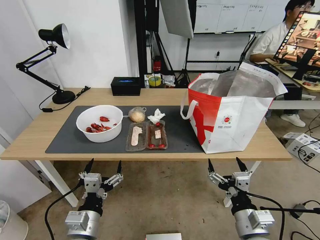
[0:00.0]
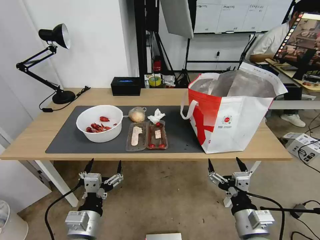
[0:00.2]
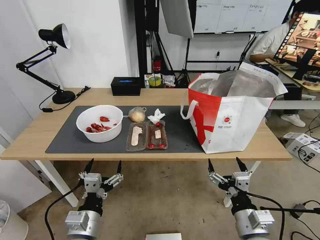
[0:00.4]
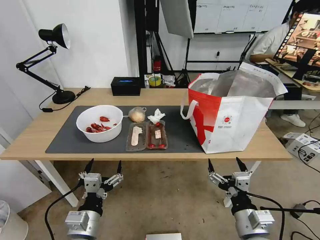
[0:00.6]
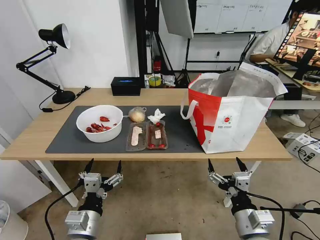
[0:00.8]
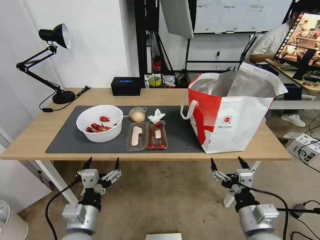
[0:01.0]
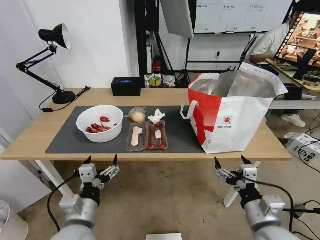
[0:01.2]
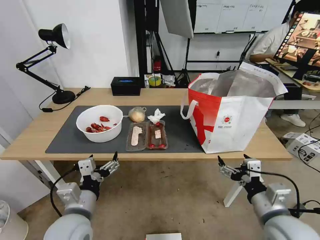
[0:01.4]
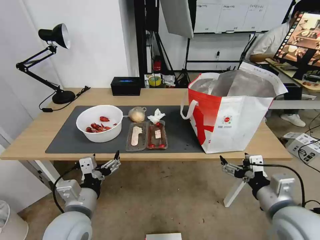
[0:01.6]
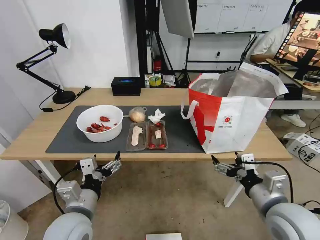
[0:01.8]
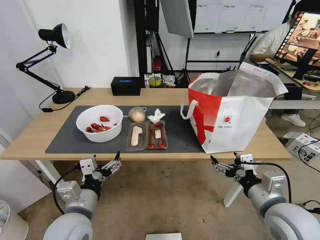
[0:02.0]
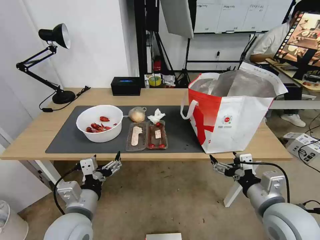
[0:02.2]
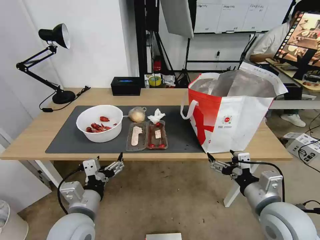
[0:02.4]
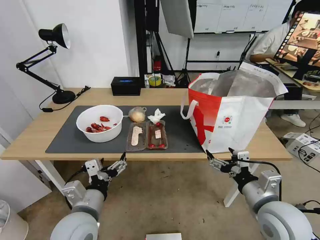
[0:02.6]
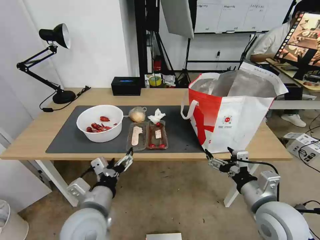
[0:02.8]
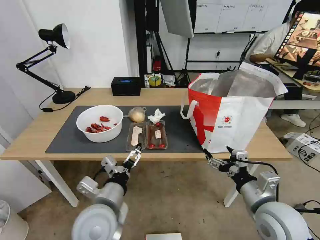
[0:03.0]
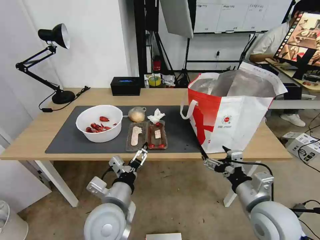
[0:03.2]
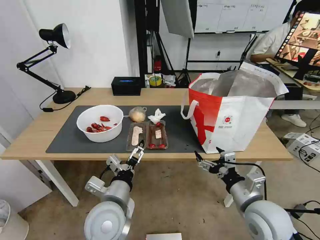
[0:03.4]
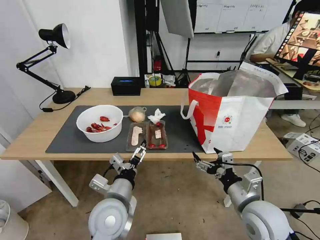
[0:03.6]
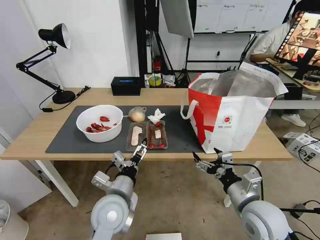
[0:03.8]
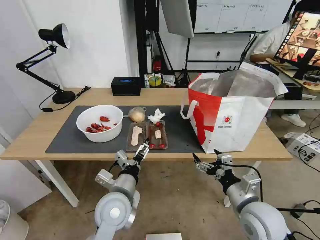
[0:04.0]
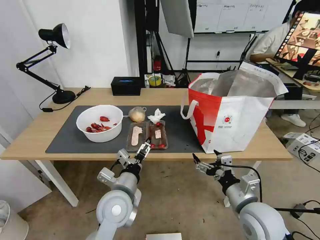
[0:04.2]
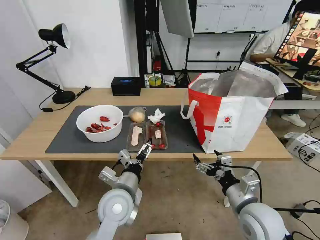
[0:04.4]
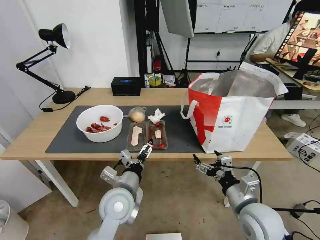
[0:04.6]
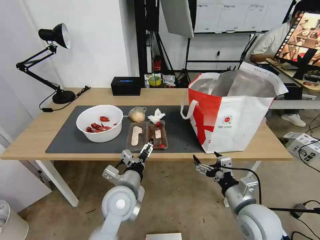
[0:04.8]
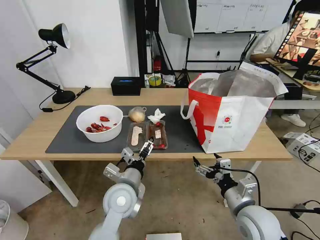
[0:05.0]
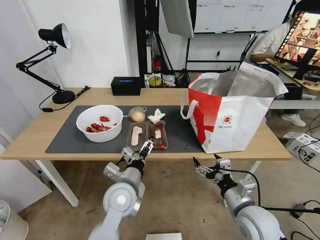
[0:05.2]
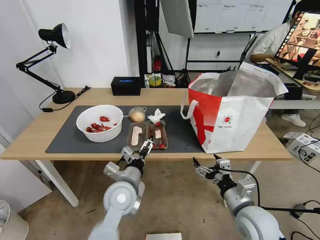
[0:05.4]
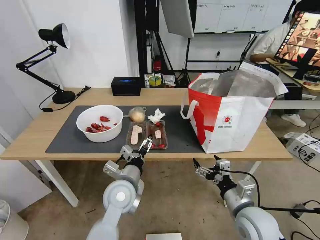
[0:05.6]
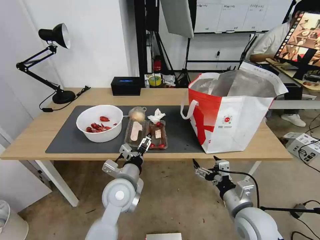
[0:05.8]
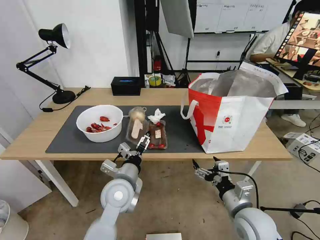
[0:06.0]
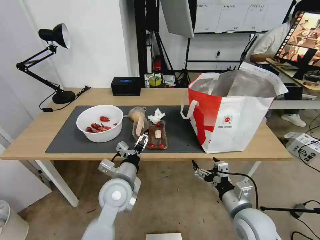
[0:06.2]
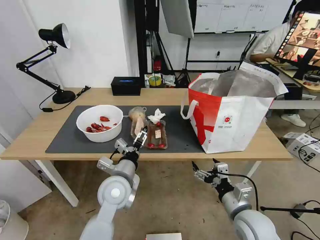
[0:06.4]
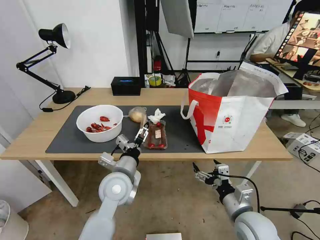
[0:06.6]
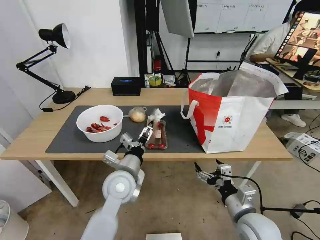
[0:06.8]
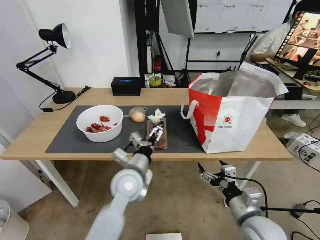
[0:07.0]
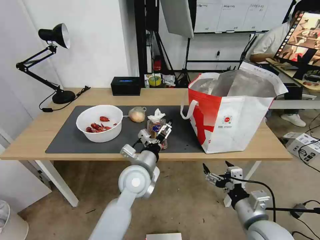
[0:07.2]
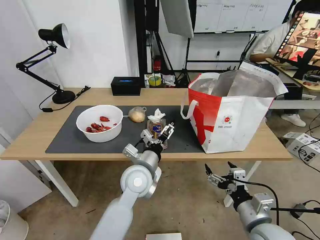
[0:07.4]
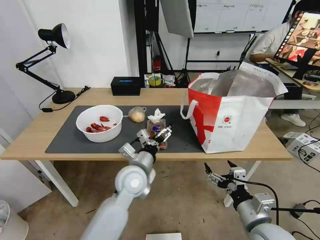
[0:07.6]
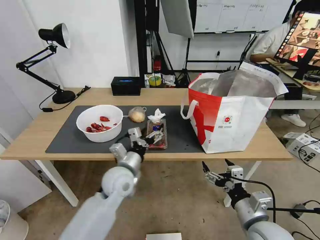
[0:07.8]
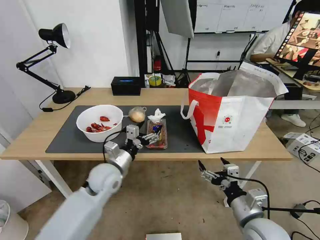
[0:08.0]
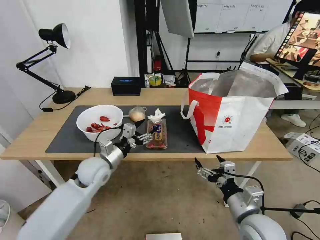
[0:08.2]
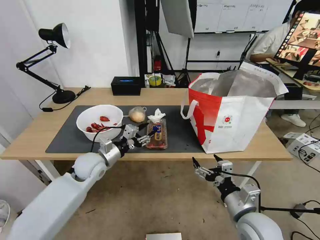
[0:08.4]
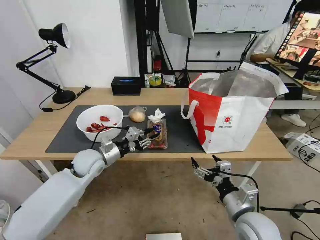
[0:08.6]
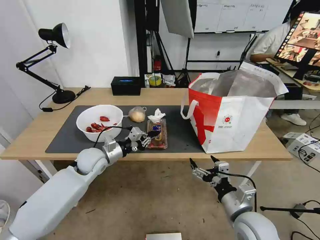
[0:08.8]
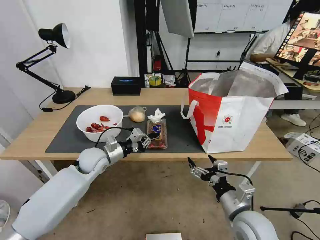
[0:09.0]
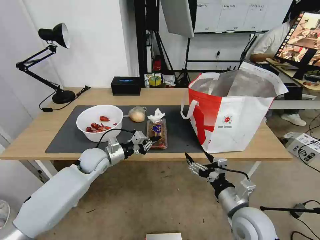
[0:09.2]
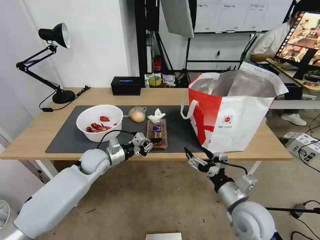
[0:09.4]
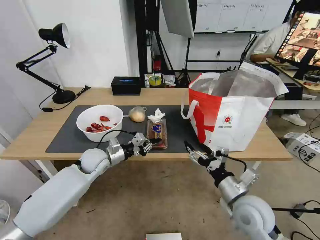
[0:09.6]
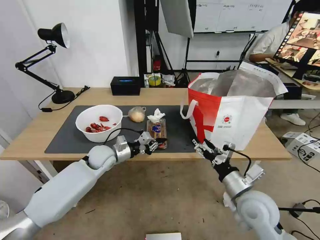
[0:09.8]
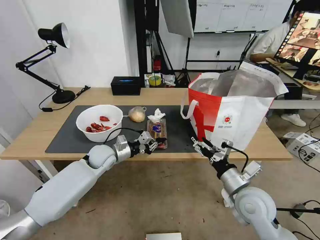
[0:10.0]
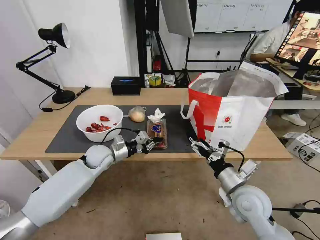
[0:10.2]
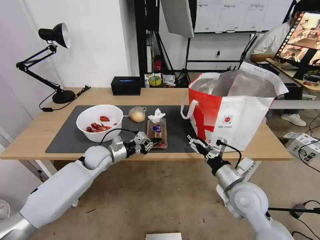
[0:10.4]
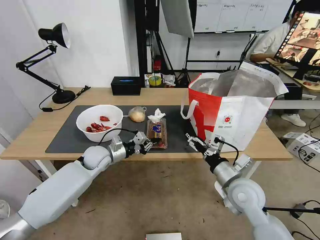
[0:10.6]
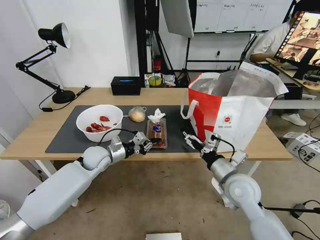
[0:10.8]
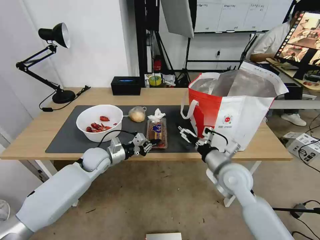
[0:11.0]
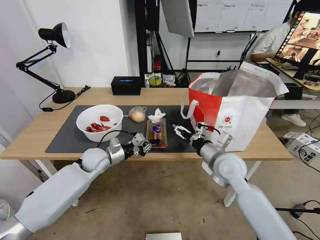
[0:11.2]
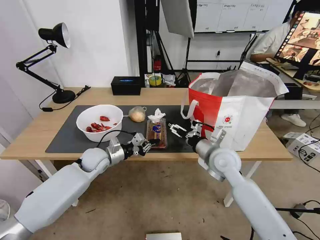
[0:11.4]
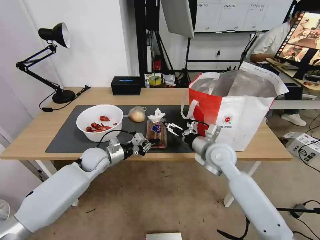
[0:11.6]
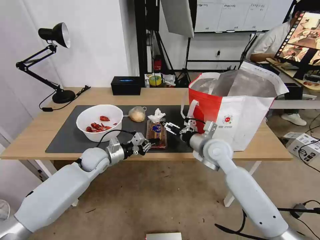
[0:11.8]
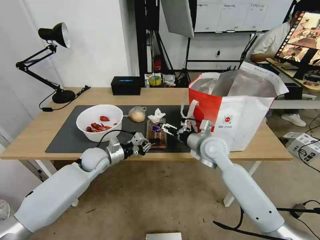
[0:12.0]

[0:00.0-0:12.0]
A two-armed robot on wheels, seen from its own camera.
Task of the whole recording: Pick up the trash from the table and place it into the takeout bag.
0:01.6 to 0:03.0: The left gripper goes about 5 cm to the right.
0:03.0 to 0:04.4: The left gripper is displaced forward by about 5 cm.
0:04.4 to 0:06.0: The grippers make only small movements.
0:06.0 to 0:07.6: The right gripper moves roughly 5 cm. The left gripper ends up approximately 5 cm from where it was.
0:07.6 to 0:09.0: The left gripper shifts some 20 cm to the left and forward, and closes.
0:09.0 to 0:10.4: The right gripper moves forward, about 5 cm.
0:10.4 to 0:12.0: The right gripper travels forward and to the left by about 15 cm.

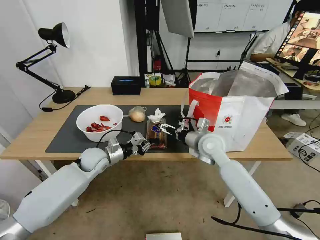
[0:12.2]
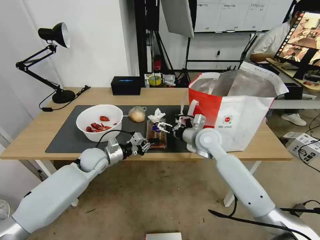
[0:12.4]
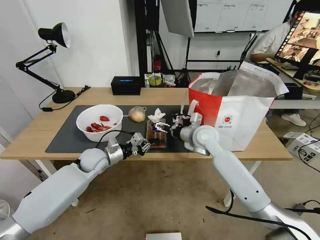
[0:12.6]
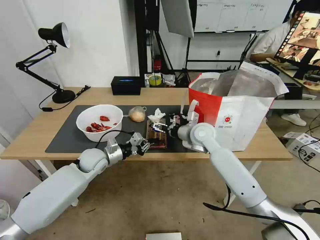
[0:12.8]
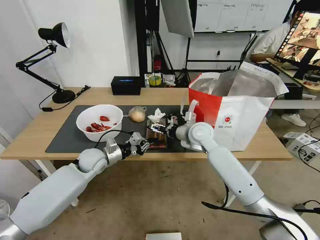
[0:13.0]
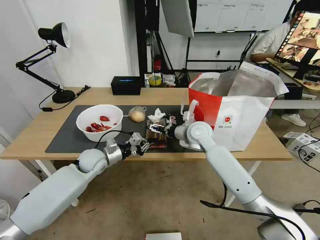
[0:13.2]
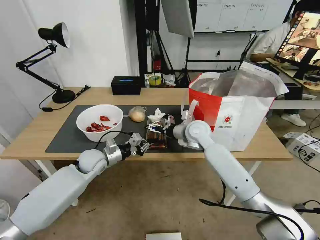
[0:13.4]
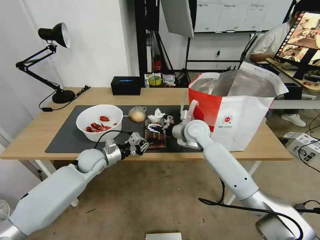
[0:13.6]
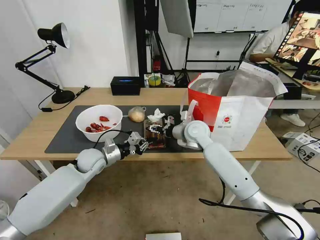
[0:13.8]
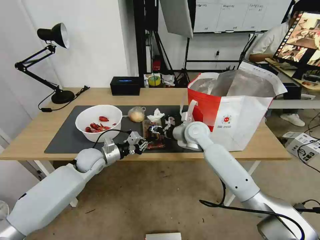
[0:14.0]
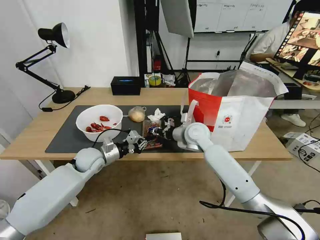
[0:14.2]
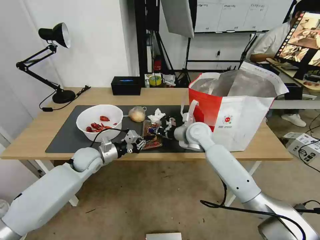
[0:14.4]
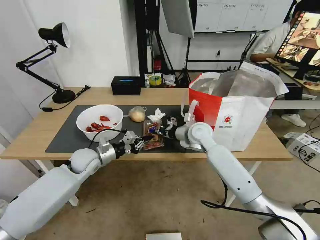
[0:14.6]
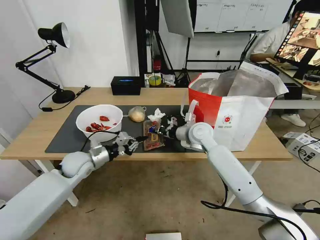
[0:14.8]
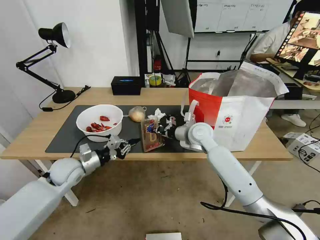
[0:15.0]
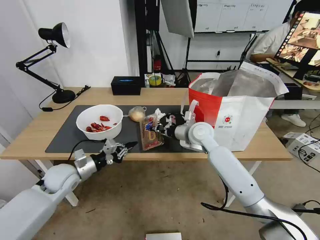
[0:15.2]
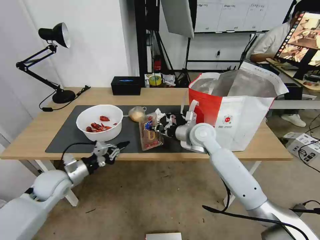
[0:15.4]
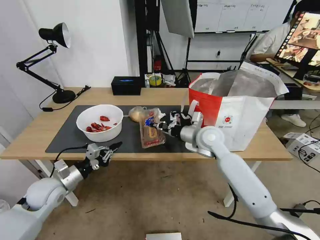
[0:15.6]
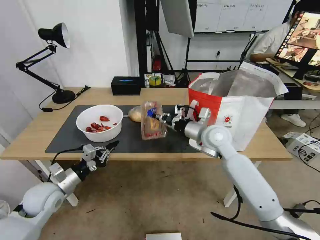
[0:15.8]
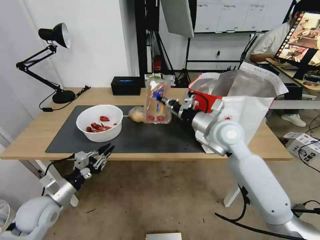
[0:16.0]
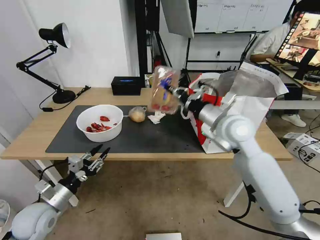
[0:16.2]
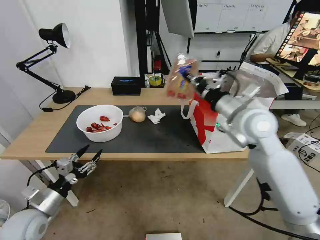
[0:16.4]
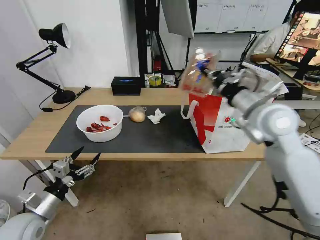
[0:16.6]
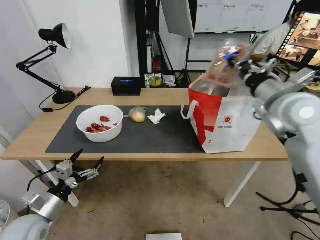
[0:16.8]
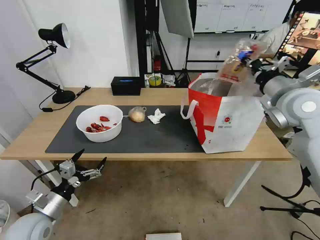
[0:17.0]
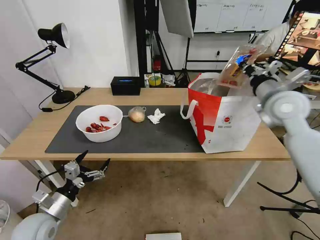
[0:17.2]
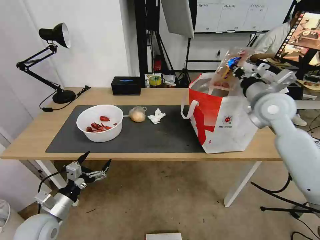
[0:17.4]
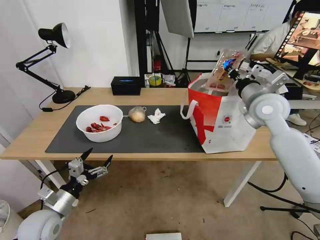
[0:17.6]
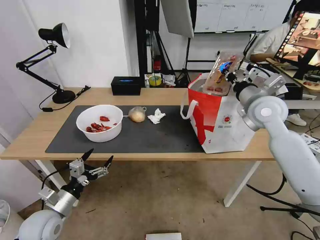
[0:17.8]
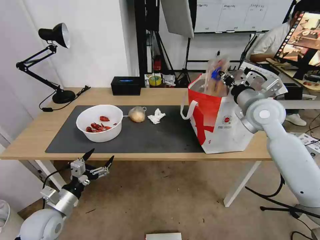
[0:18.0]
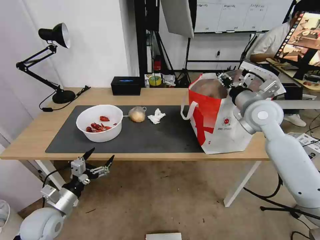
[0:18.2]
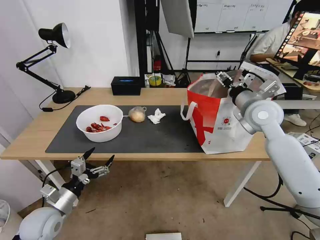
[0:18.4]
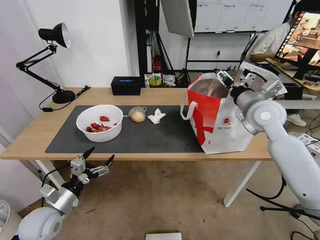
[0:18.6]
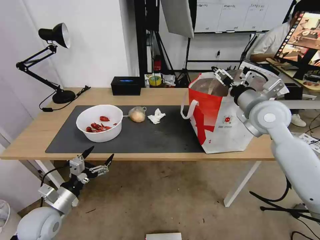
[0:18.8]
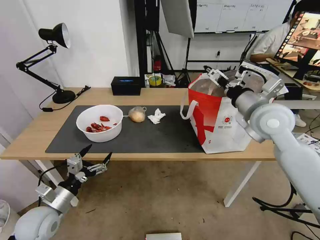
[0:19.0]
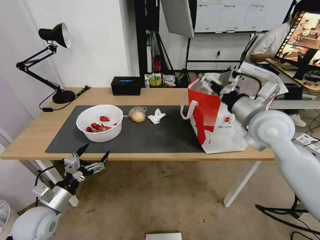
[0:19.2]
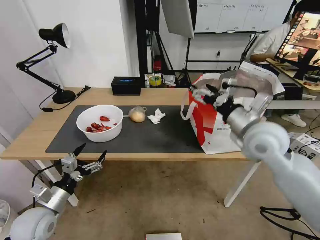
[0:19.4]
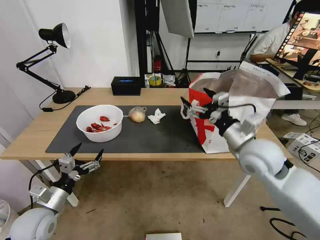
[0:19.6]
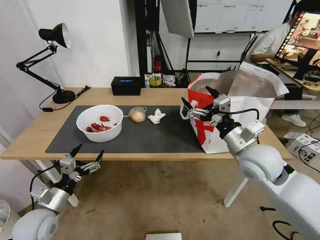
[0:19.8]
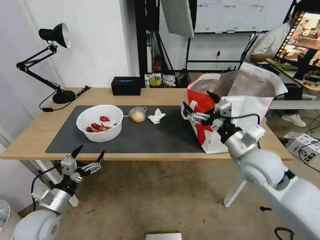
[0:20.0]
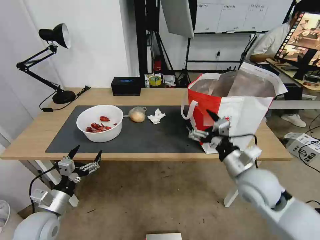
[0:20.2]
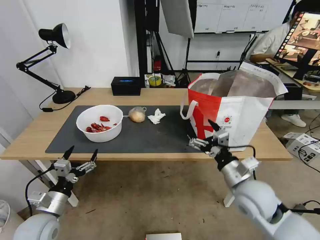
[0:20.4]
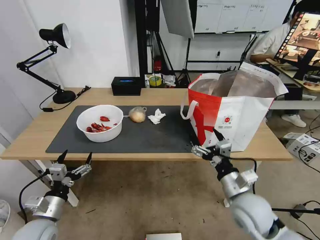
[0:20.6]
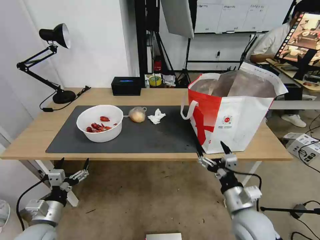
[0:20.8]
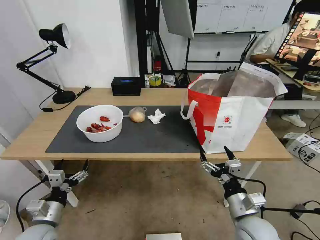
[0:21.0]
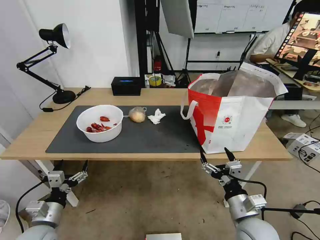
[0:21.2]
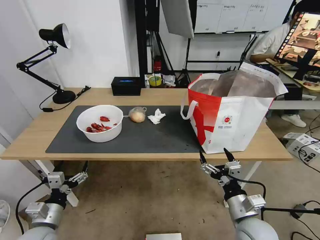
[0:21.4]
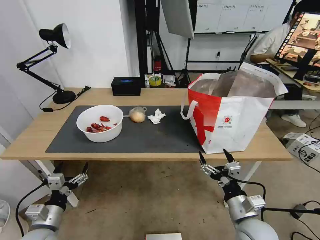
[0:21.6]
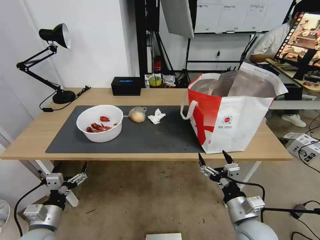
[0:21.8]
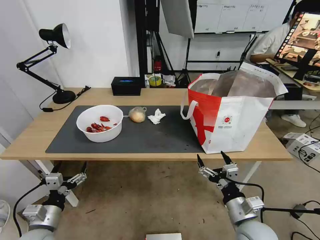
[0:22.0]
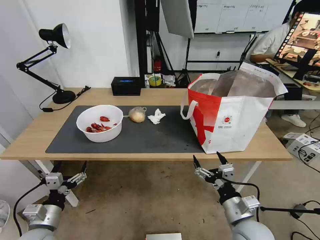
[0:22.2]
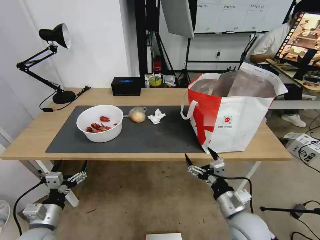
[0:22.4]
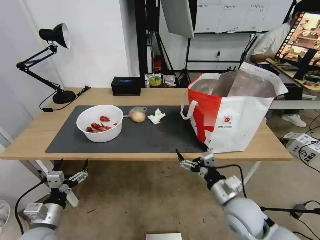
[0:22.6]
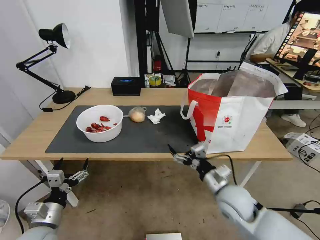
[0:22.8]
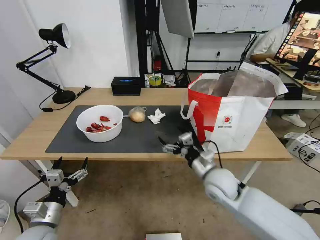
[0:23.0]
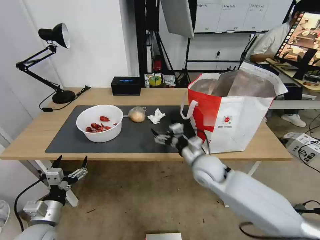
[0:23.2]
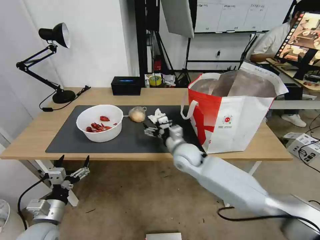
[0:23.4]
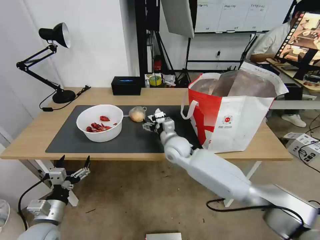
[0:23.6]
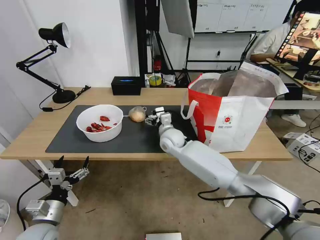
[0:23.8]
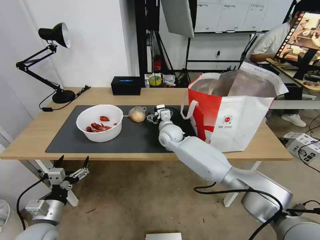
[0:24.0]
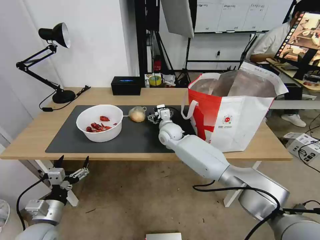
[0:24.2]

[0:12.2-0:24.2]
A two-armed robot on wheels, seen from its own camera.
Task of the whole recording: Pick up the trash from the table and place it into the takeout bag.
0:12.2 to 0:13.8: The right gripper is displaced forward by about 5 cm.
0:13.8 to 0:15.2: The right gripper closes up. Meanwhile the left gripper moves backward and to the left, roughly 10 cm.
0:15.2 to 0:16.6: The right gripper moves upward, to the right and backward, approximately 20 cm. Meanwhile the left gripper heads backward, covering some 15 cm, and opens.
0:16.6 to 0:18.2: The right gripper moves forward, roughly 5 cm, and opens.
0:18.2 to 0:19.8: The right gripper moves backward and downward, roughly 15 cm, and opens.
0:19.8 to 0:21.2: The right gripper heads downward and backward, covering roughly 20 cm.
0:21.2 to 0:22.6: The grippers make only small movements.
0:22.6 to 0:24.2: The right gripper is displaced forward and to the left by approximately 35 cm.
